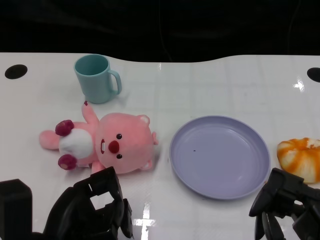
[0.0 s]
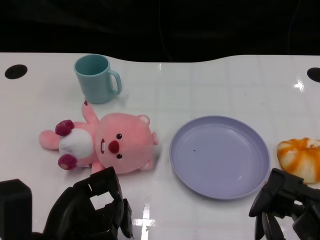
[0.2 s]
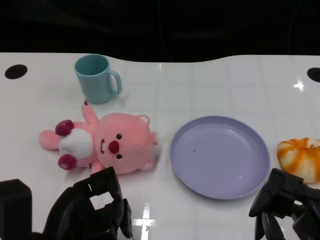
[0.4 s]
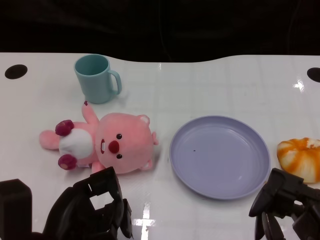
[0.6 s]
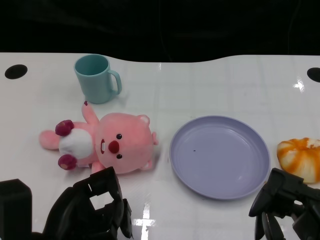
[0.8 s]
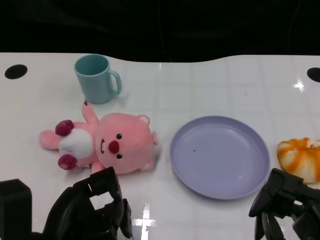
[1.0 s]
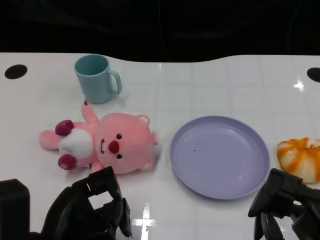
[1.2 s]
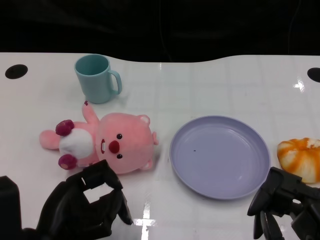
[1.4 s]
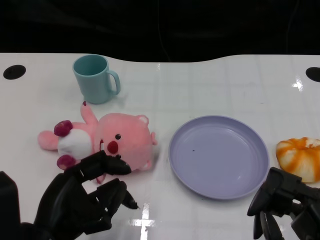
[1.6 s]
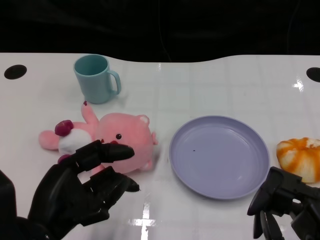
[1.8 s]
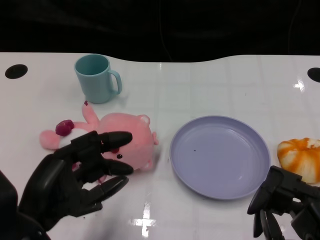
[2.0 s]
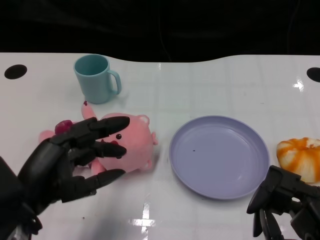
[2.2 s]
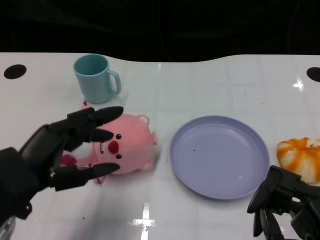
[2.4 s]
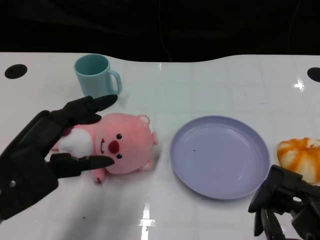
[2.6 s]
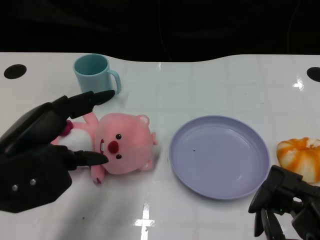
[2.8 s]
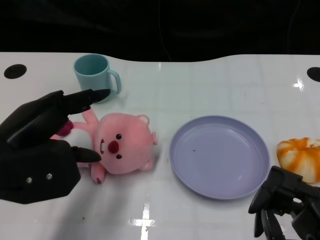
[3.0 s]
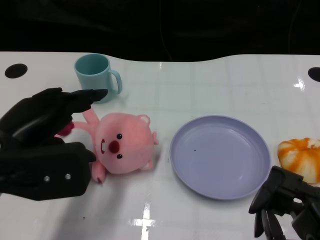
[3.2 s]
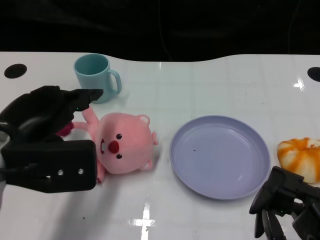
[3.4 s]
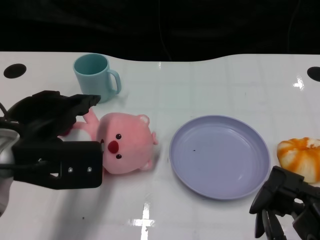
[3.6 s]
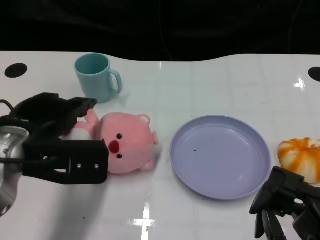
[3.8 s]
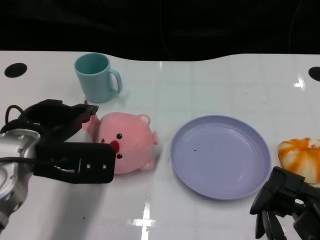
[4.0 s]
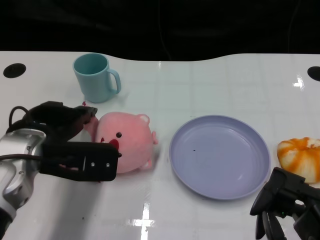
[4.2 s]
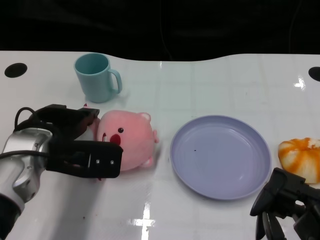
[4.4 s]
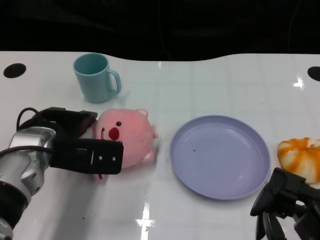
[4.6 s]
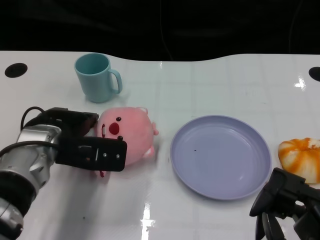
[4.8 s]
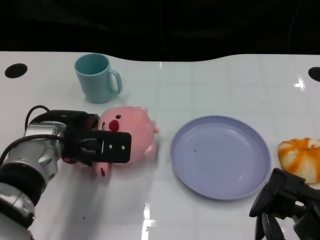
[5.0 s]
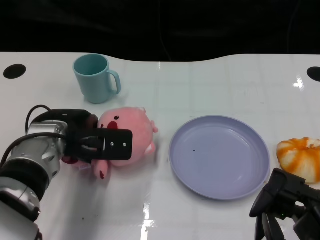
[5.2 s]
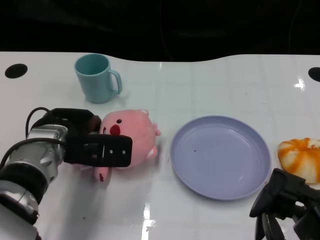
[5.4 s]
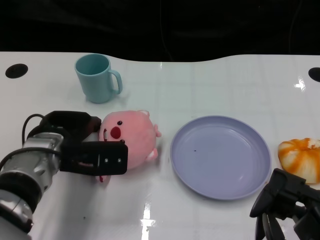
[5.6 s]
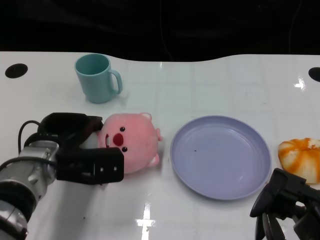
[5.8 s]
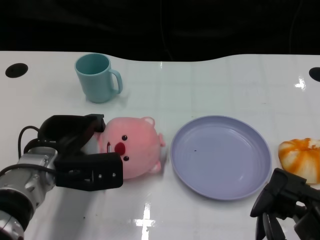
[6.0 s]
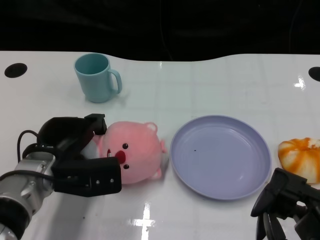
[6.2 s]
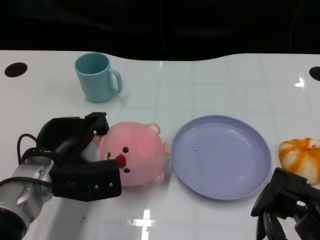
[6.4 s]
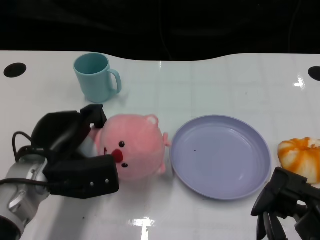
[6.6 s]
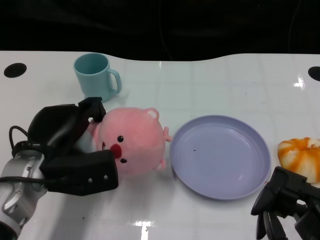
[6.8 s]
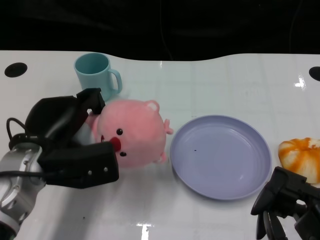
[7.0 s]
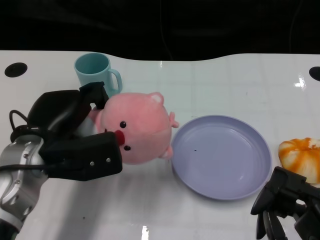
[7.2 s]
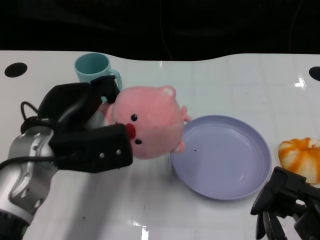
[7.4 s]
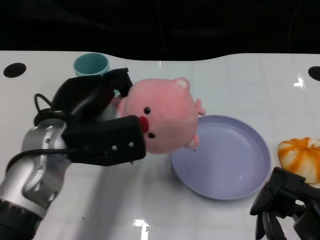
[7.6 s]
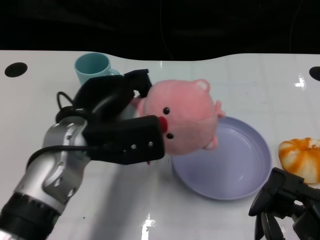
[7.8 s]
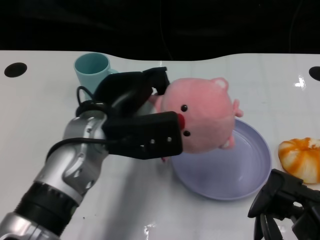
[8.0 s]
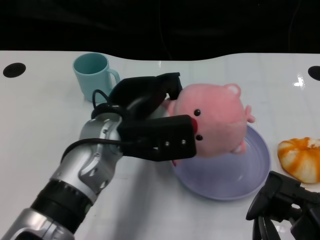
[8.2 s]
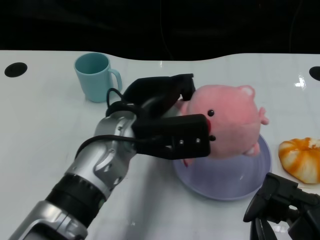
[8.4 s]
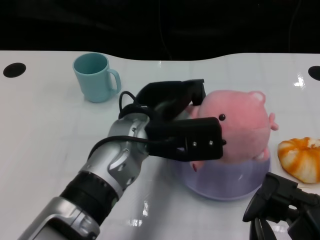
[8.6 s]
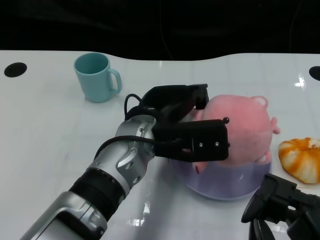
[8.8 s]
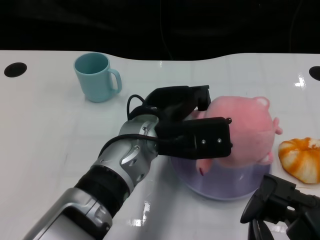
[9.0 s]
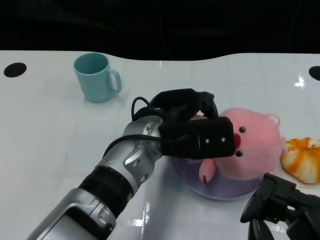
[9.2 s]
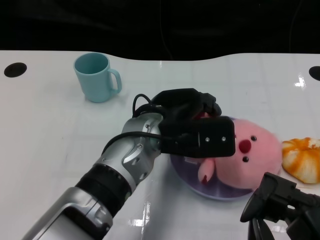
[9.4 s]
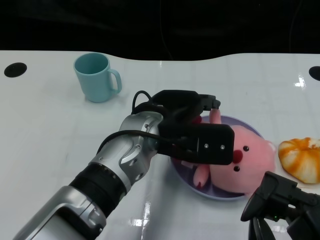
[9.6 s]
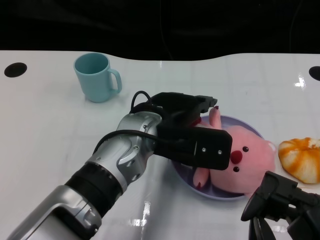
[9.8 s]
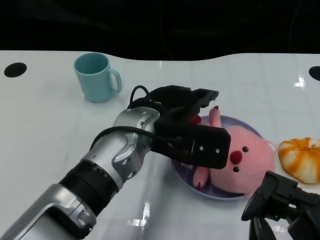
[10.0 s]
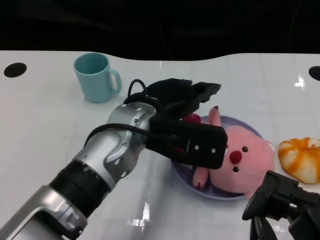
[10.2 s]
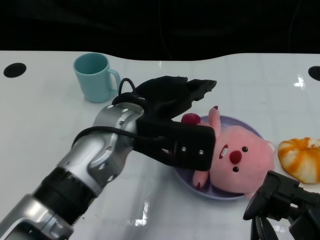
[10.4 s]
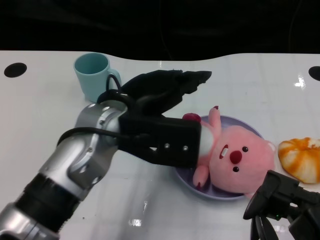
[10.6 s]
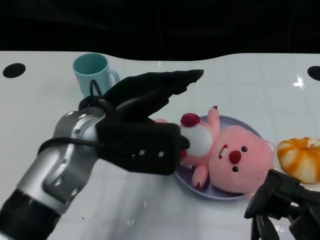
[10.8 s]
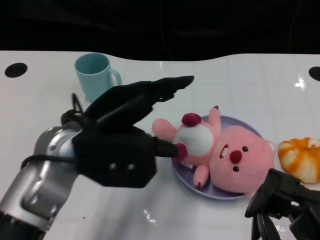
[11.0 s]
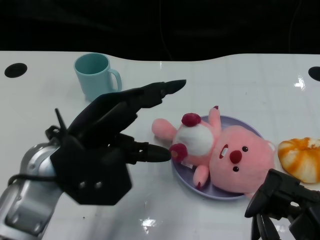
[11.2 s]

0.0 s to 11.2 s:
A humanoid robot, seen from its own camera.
Task of the whole recording: Pick up the doll on one side of the plate and place it into the plate.
Step, 1.2 to 6.6 s: Grasp the pink doll with the left gripper.
Step, 6.8 to 9.8 s: Place the pink doll into the plate with the left gripper.
1.6 to 3.2 s: The left hand goes approximately 10 cm upward and forward.
3.2 to 4.8 s: The left hand is displaced forward and downward by about 10 cm.
4.8 to 6.4 s: The left hand ends up roughly 5 cm from where it was.
6.4 to 8.0 s: The left hand is displaced upward and to the right by approximately 10 cm.
8.0 to 9.6 s: The left hand is displaced to the right by some 10 cm.
9.6 to 11.2 s: The left hand shifts some 10 cm to the left.

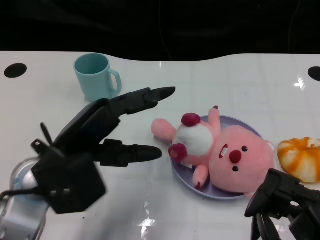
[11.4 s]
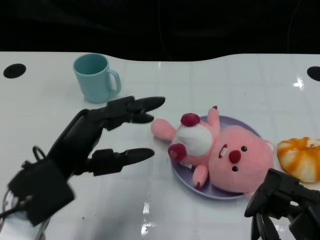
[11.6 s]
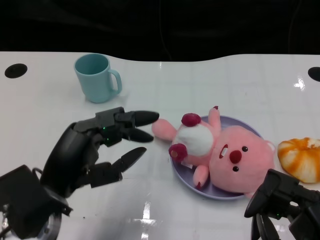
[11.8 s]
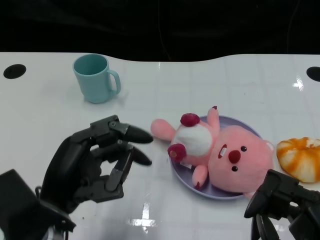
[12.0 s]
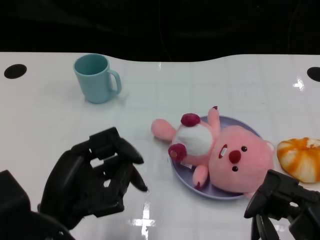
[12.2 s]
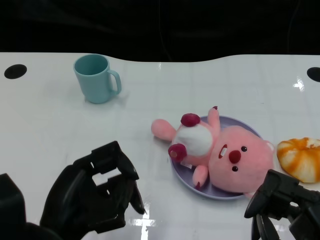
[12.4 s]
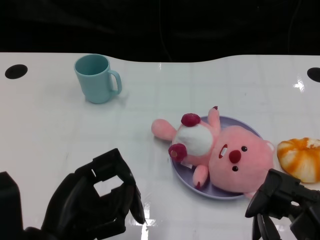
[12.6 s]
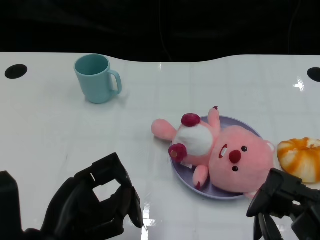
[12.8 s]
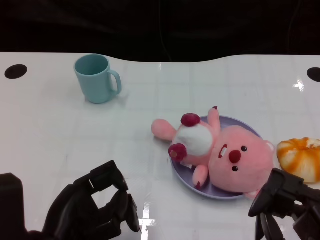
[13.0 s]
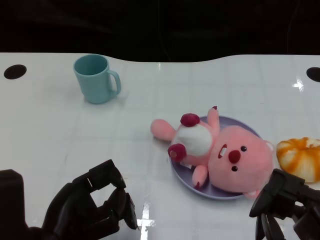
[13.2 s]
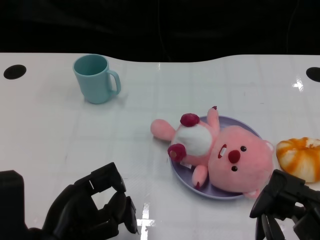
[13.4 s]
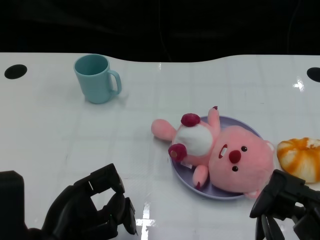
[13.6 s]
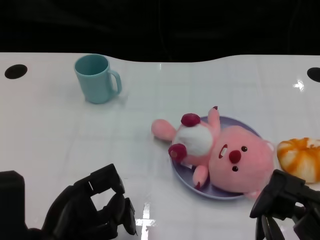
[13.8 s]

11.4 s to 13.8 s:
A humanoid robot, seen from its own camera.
Task of the whole recording: Pick up the doll on one side of the plate and place it into the plate.
11.4 to 12.6 s: The left hand goes about 10 cm backward.
12.6 to 13.8 s: The hands move only a little.

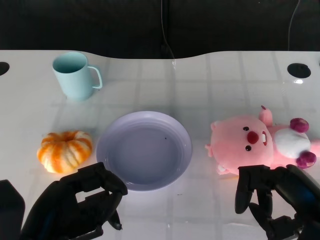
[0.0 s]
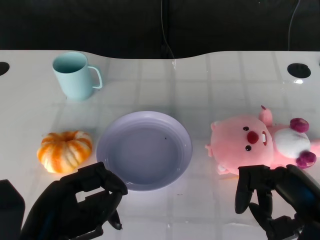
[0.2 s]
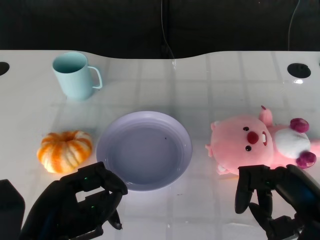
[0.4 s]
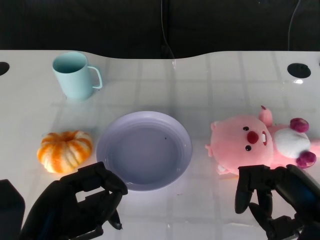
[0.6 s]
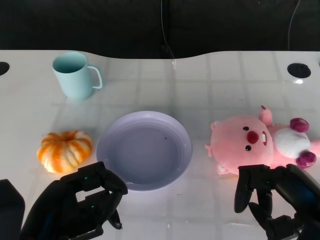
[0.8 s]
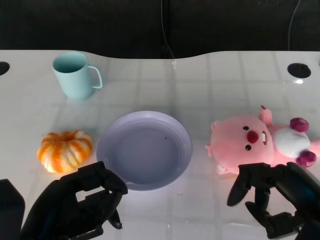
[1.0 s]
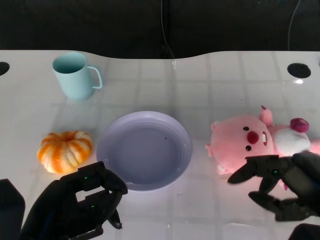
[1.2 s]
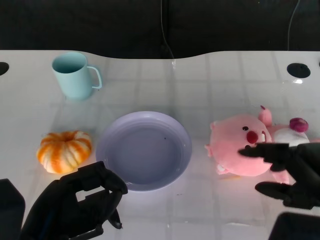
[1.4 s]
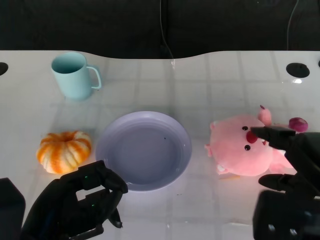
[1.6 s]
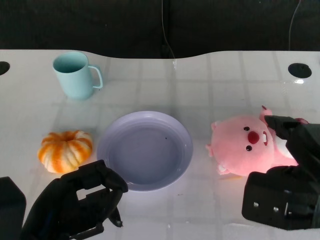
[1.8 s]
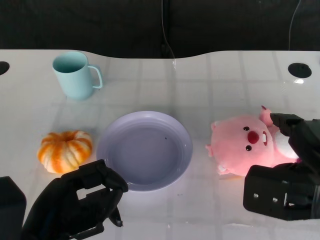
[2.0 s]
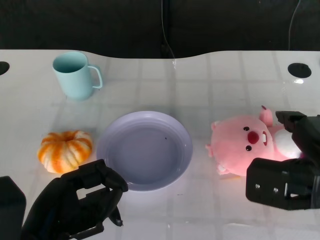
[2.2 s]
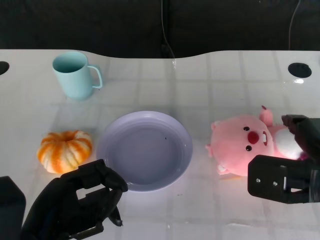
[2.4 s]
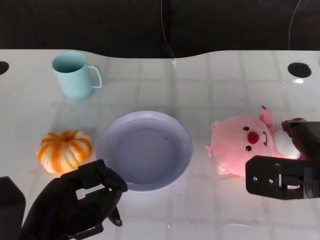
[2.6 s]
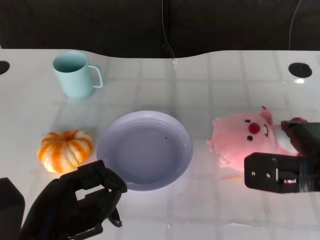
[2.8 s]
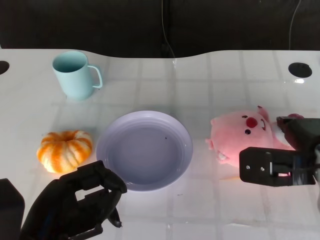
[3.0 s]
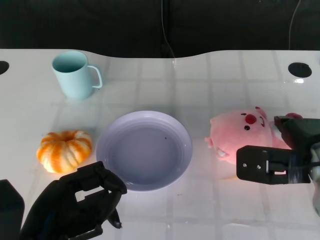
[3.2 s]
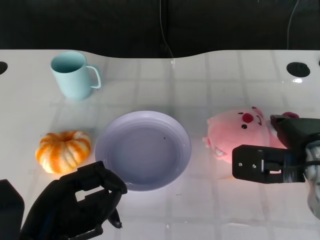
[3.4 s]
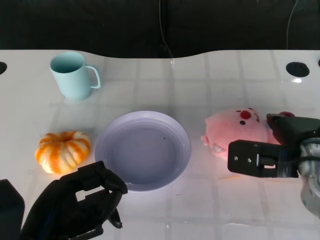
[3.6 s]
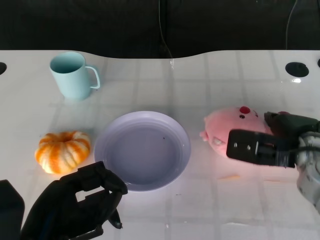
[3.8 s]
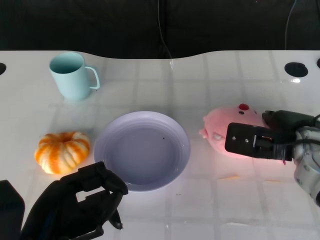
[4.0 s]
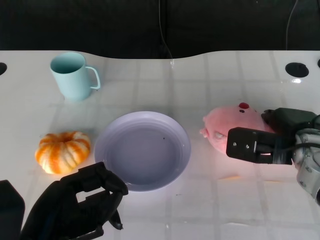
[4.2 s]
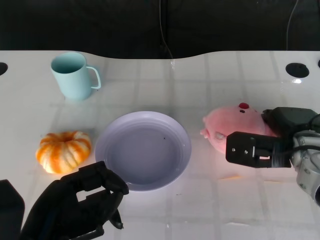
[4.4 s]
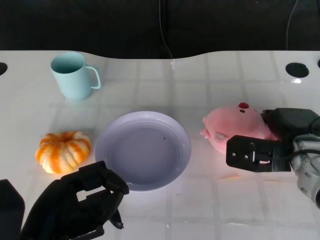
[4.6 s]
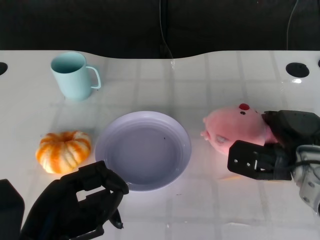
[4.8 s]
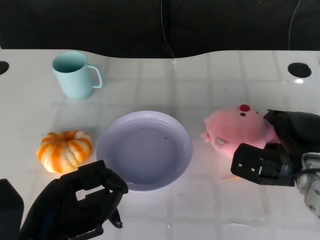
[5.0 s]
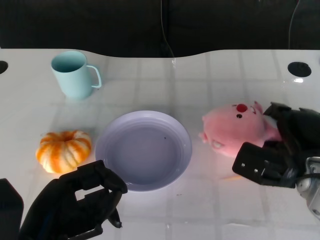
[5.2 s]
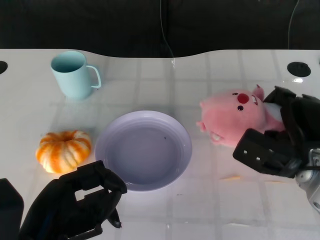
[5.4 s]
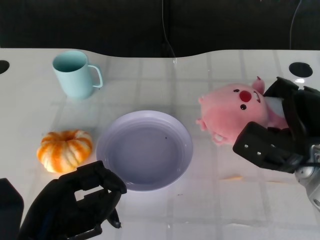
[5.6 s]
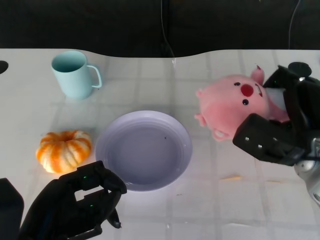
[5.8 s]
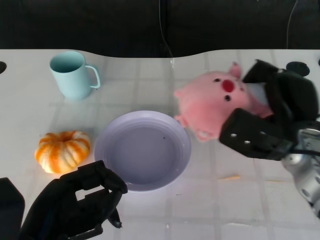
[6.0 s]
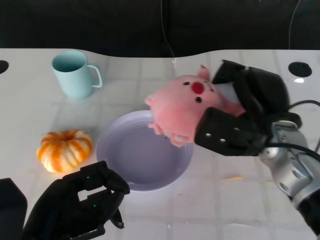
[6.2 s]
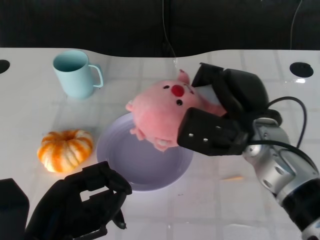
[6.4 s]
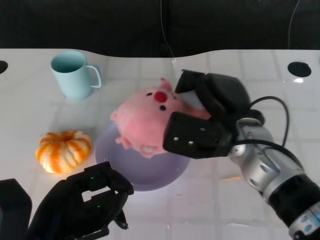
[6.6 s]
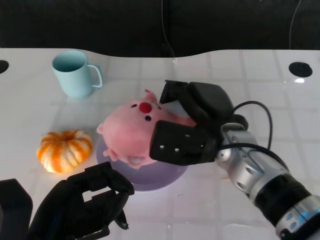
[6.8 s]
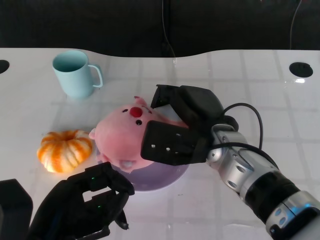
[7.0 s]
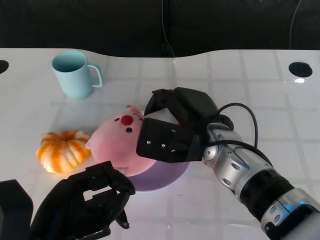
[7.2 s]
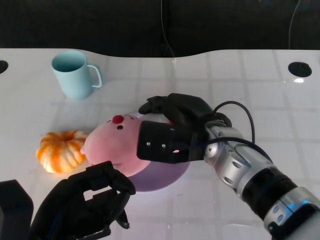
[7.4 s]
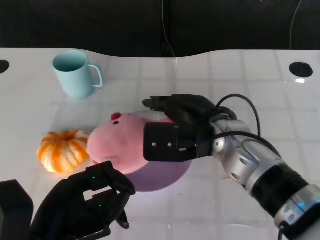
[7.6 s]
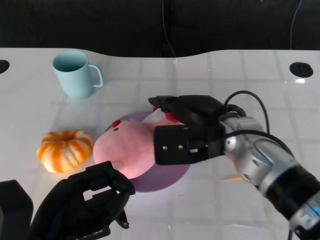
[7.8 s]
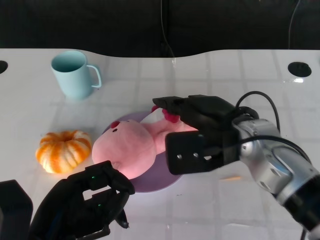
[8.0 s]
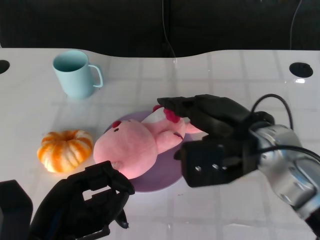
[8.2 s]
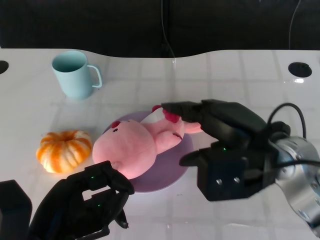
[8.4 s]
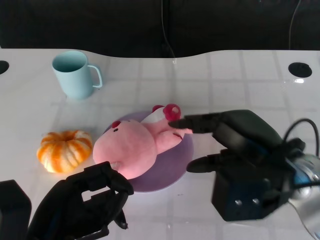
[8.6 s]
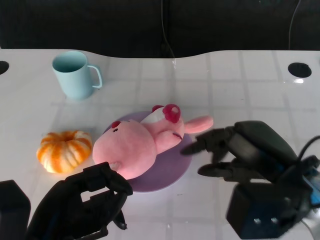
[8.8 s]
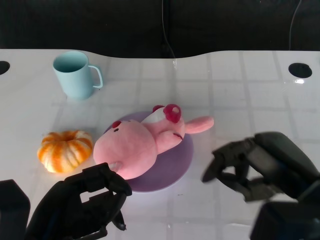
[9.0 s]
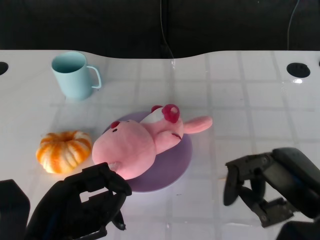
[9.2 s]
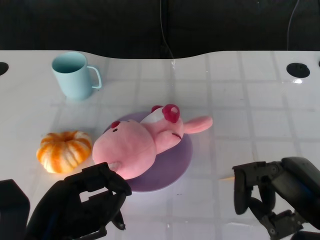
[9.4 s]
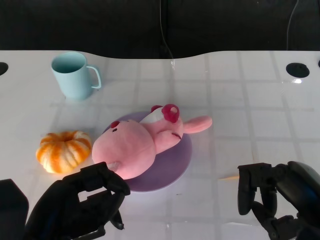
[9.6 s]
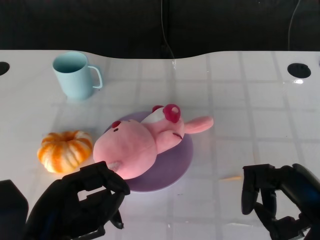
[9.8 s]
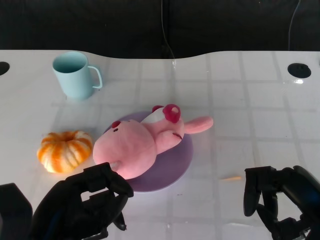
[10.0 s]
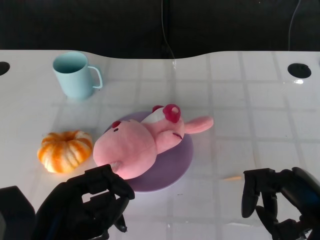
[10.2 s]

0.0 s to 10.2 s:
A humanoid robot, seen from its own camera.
Task of the whole recording: Pick up the doll on the other side of the plate and place it into the plate.
Step, 1.0 to 5.4 s: Grasp the pink doll with the right gripper.
Step, 5.8 to 8.2 s: Place the pink doll into the plate with the right gripper.
1.4 to 3.0 s: The right hand shifts roughly 10 cm forward.
3.0 to 4.4 s: The right hand shifts by approximately 5 cm.
5.8 to 7.2 s: The right hand heads to the left, covering roughly 15 cm.
7.2 to 8.8 s: The right hand travels to the right and backward by roughly 15 cm.
8.8 to 10.2 s: The right hand moves to the right and backward, approximately 10 cm.
